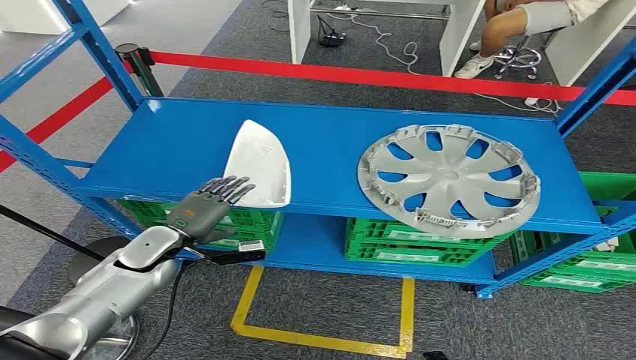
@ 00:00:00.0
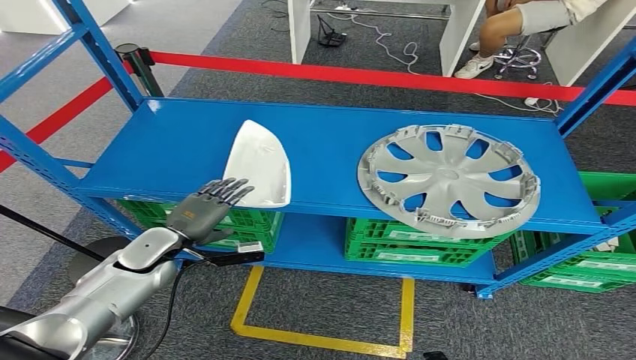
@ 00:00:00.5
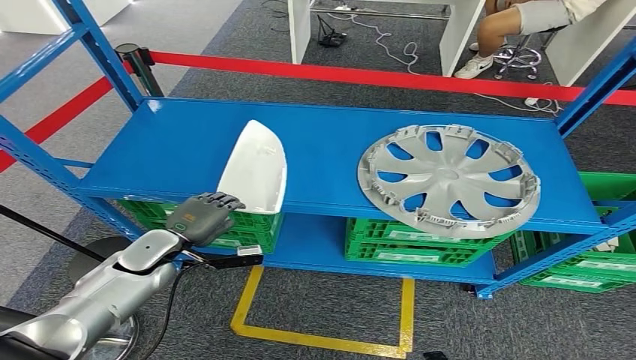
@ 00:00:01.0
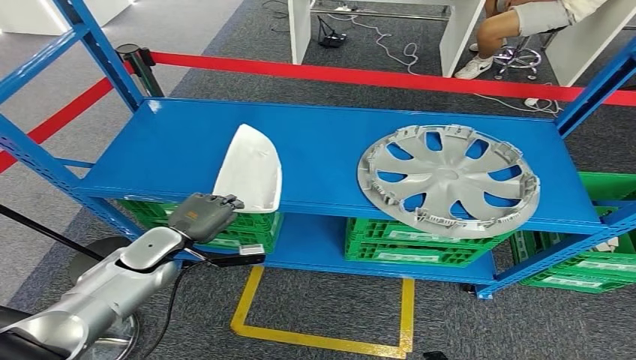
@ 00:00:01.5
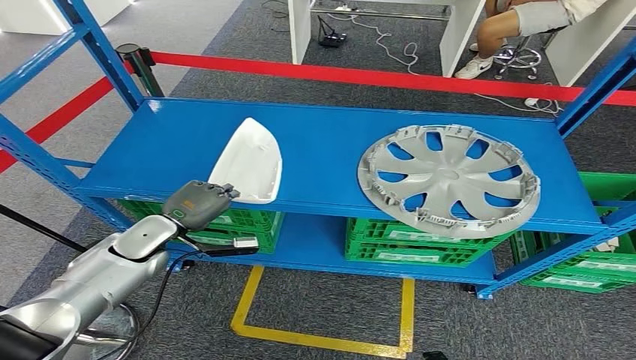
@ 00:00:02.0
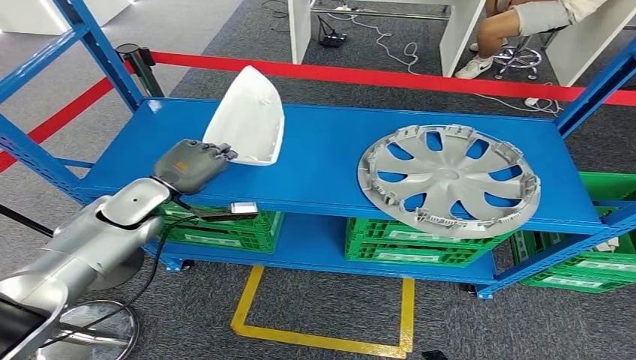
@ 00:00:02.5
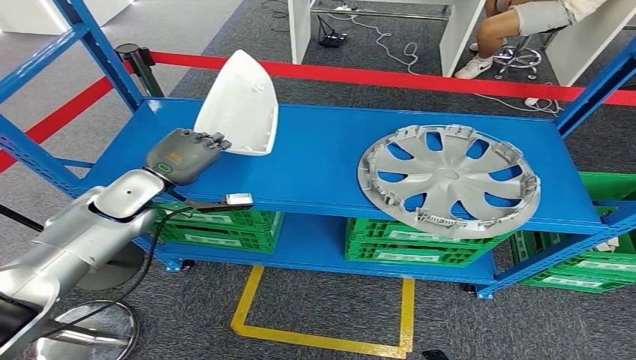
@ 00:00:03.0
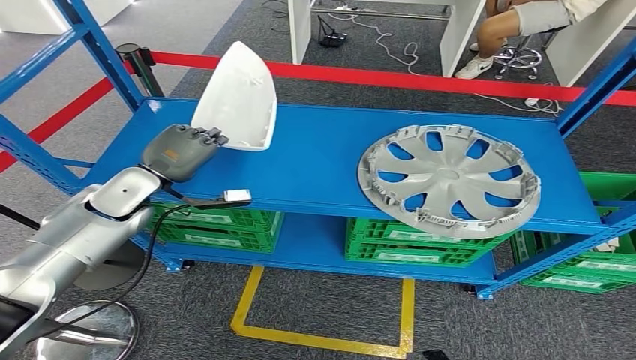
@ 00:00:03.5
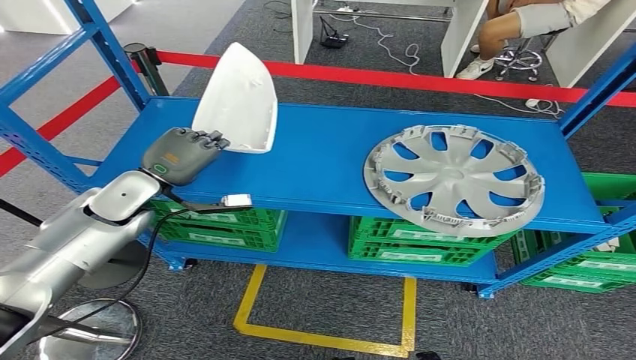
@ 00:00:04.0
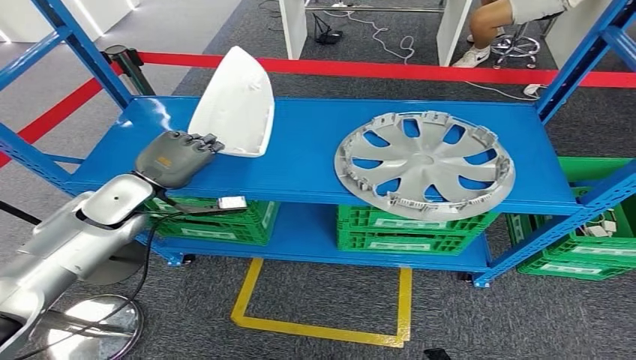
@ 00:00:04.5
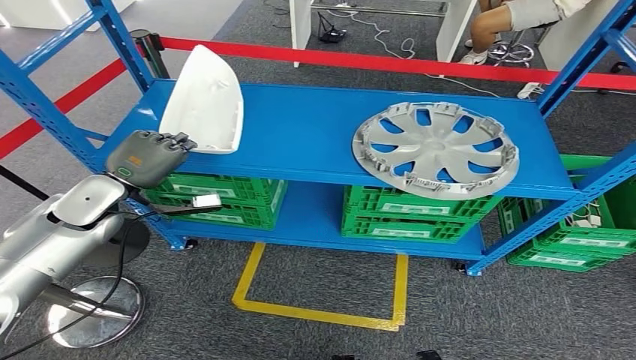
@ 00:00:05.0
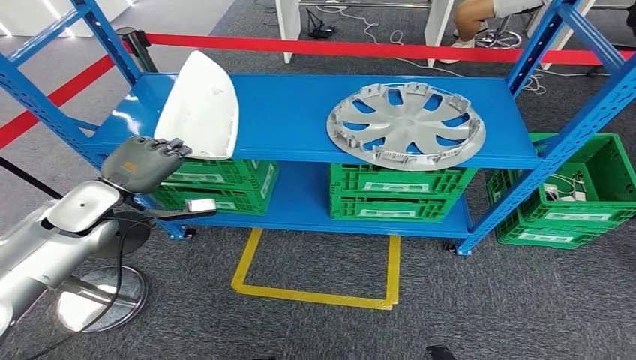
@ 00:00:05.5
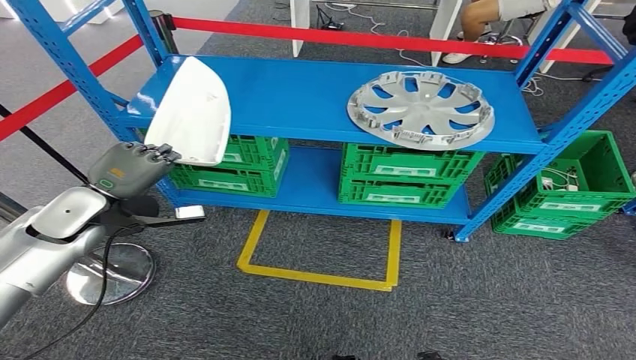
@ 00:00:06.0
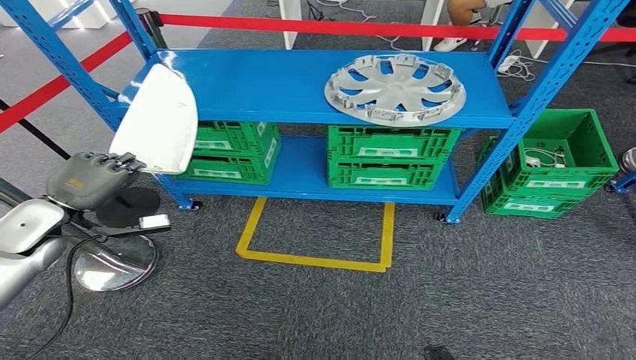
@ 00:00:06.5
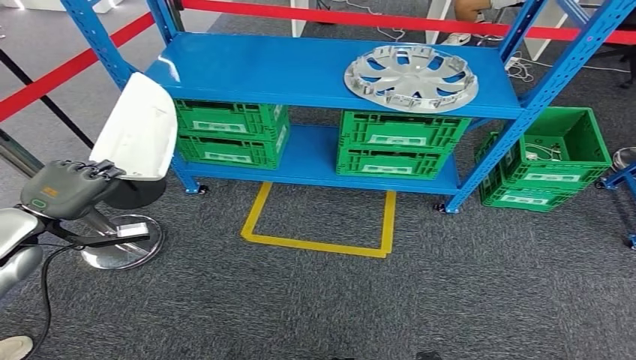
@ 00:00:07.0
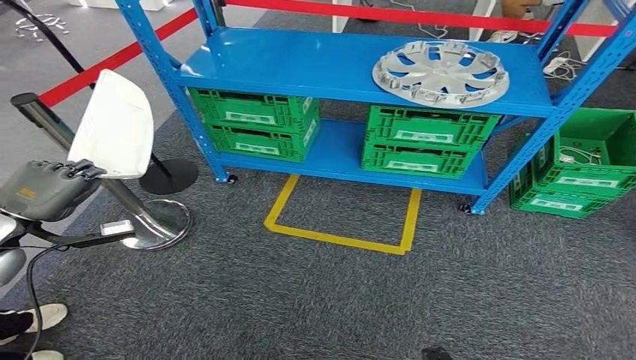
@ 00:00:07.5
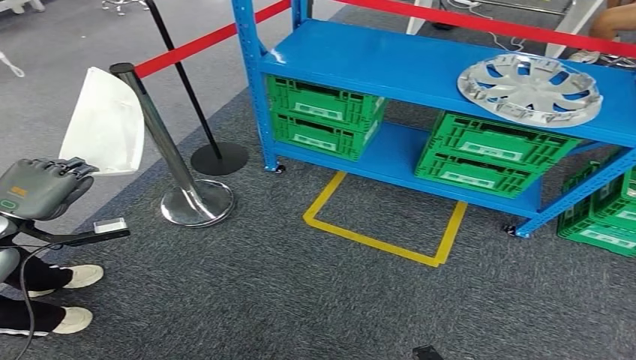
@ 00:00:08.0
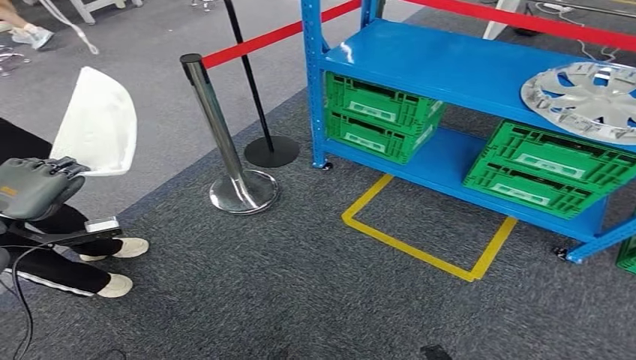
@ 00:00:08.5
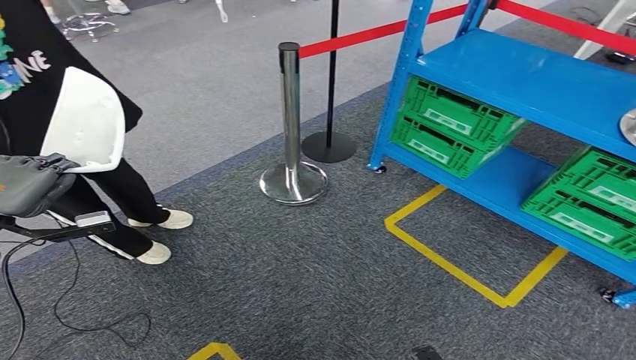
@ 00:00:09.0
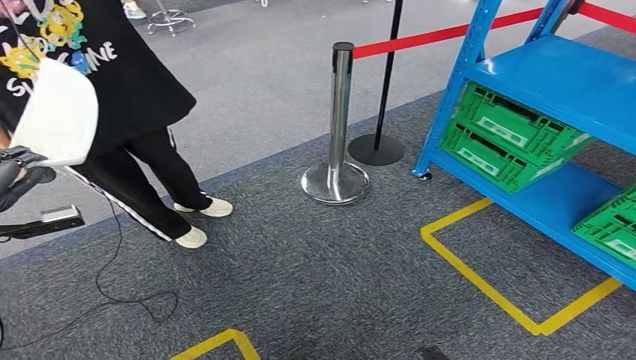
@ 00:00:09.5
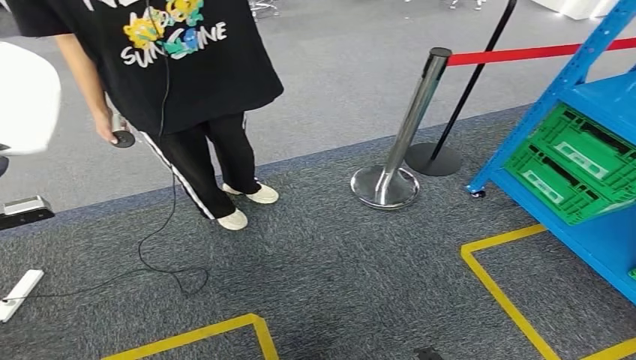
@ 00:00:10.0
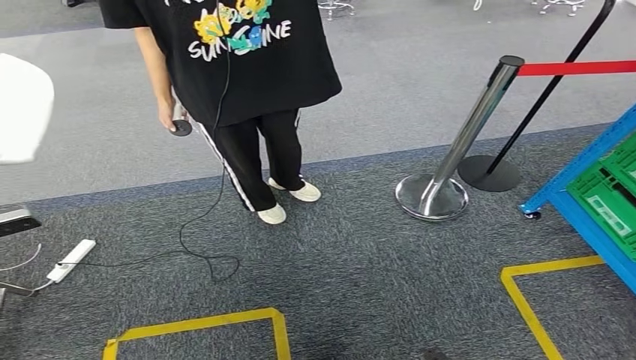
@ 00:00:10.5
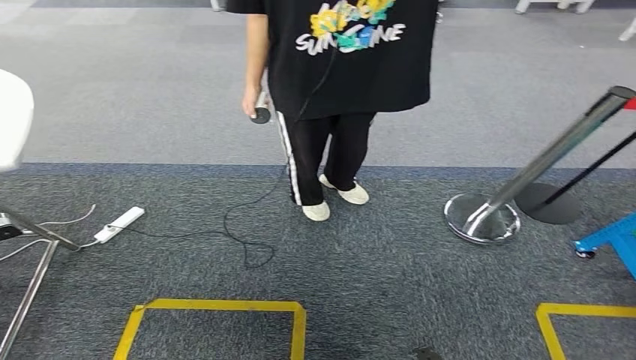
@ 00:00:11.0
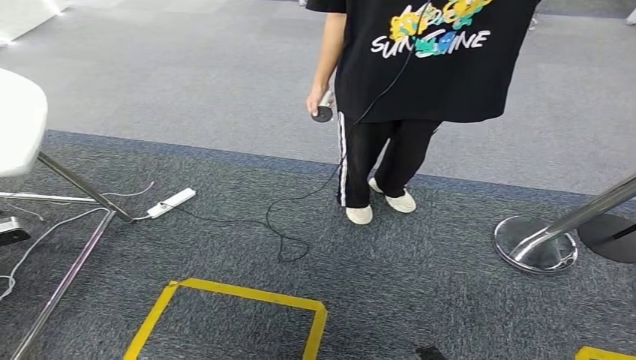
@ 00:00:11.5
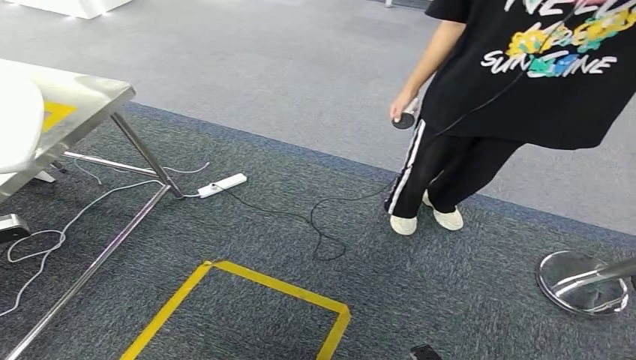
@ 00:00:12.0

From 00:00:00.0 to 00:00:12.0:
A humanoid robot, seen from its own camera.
Step, from 00:00:00.0 to 00:00:07.5: Pick up the small parts from the shelf.

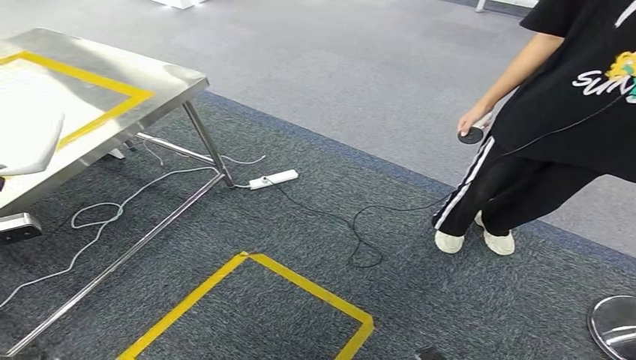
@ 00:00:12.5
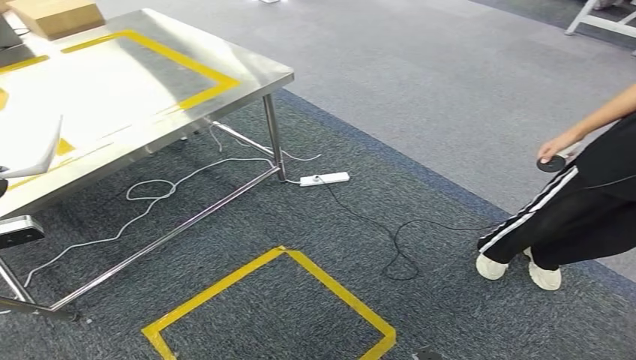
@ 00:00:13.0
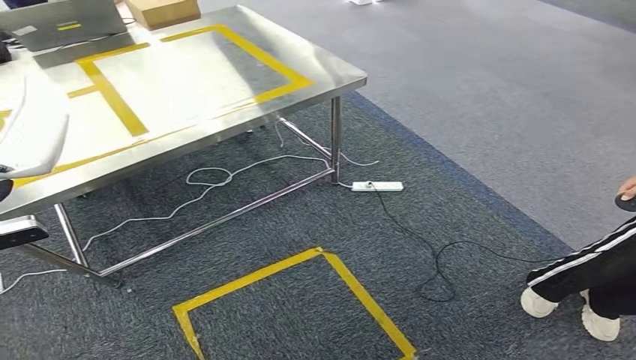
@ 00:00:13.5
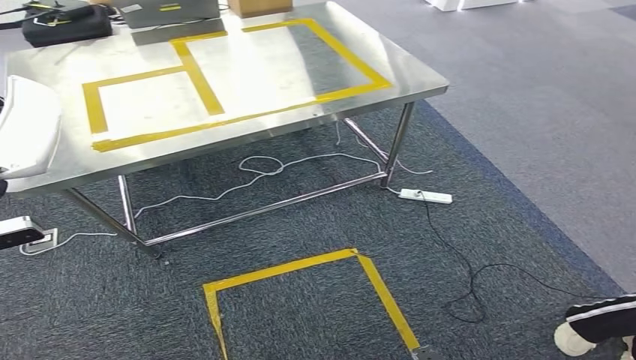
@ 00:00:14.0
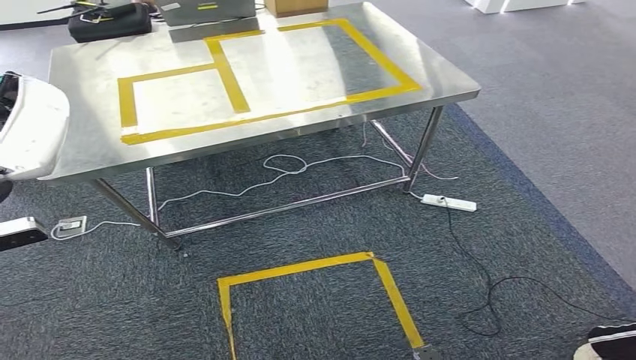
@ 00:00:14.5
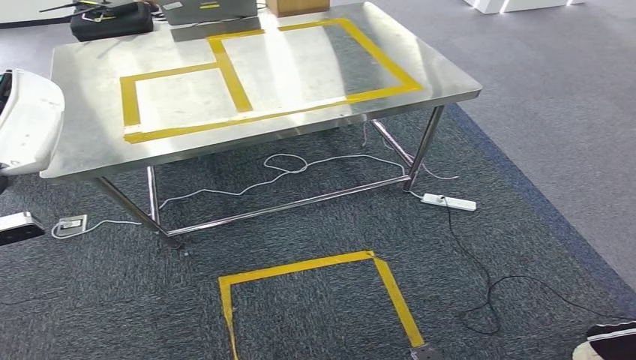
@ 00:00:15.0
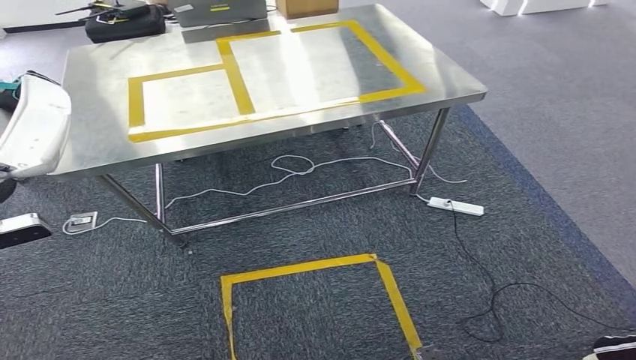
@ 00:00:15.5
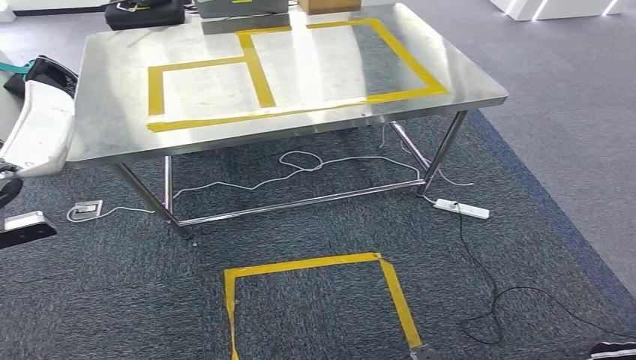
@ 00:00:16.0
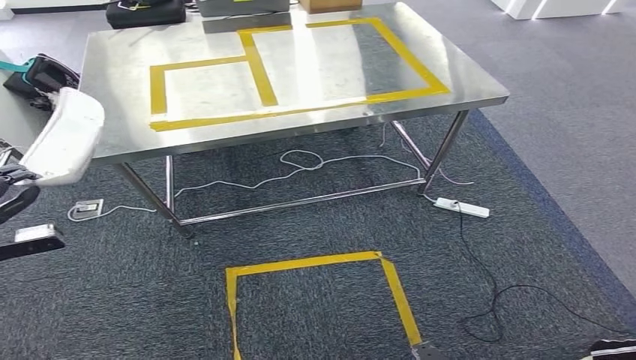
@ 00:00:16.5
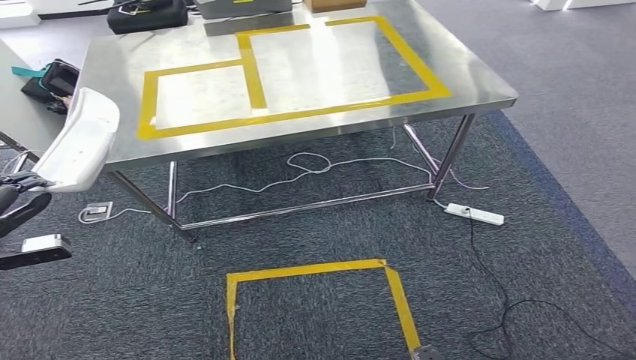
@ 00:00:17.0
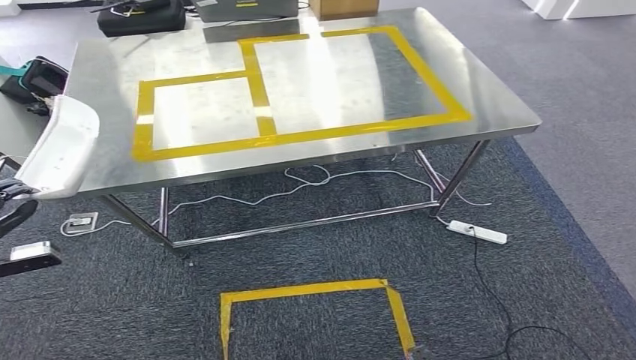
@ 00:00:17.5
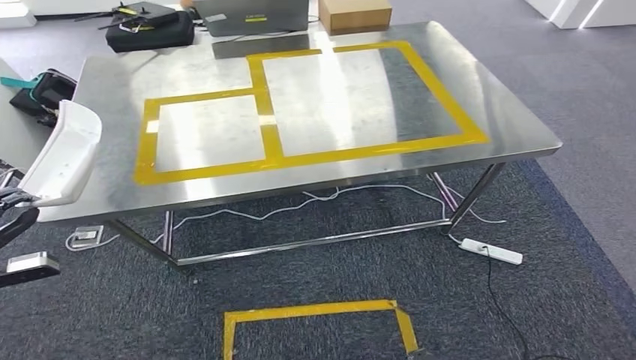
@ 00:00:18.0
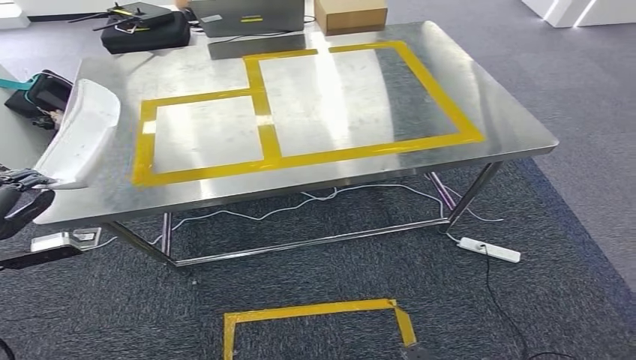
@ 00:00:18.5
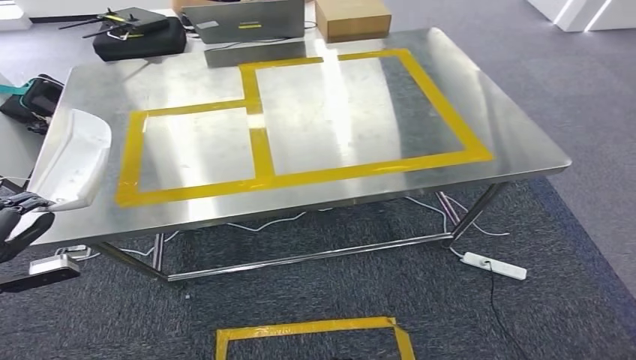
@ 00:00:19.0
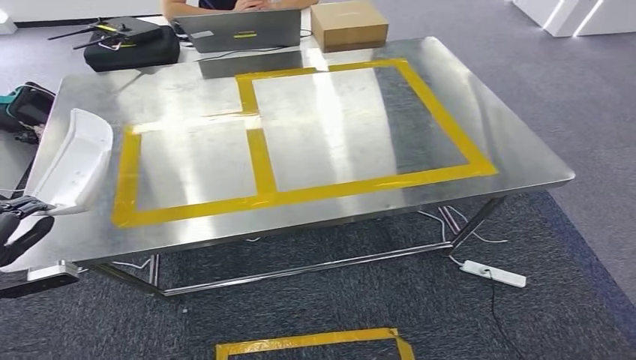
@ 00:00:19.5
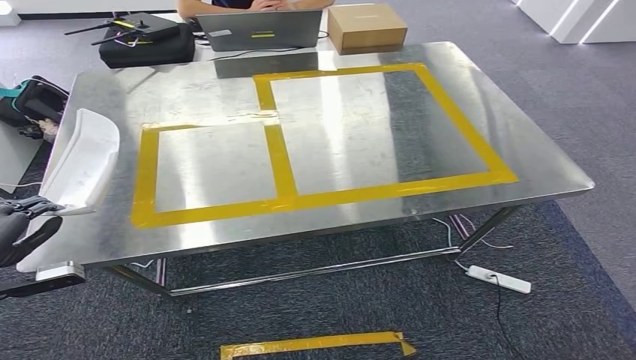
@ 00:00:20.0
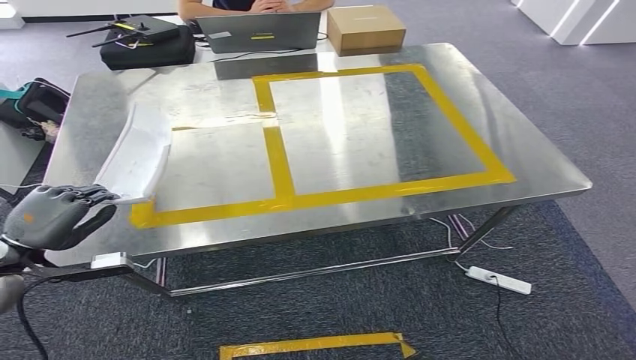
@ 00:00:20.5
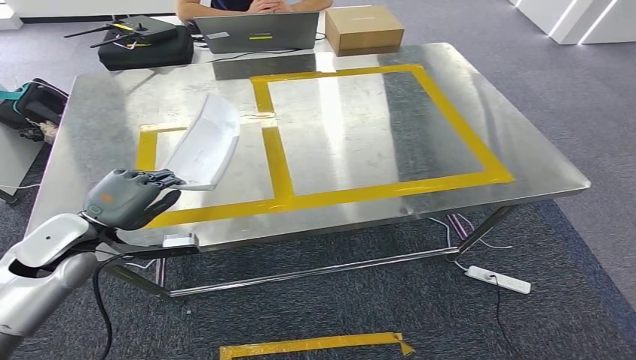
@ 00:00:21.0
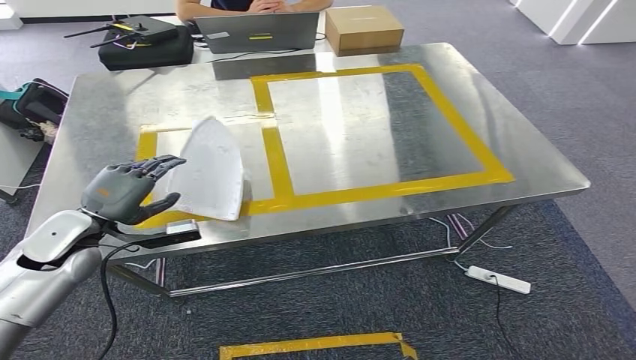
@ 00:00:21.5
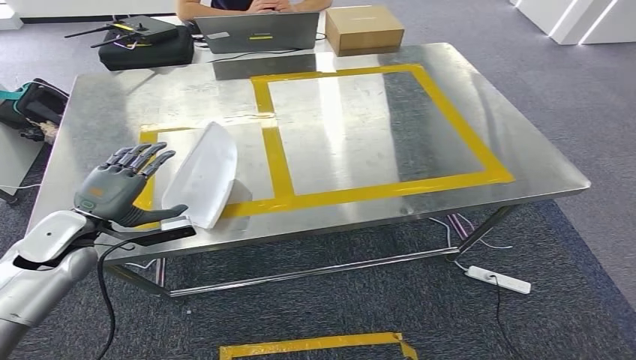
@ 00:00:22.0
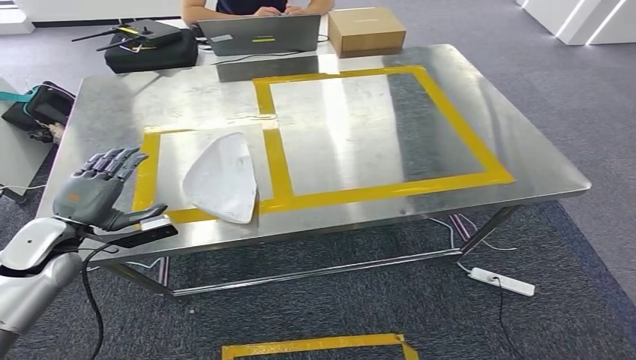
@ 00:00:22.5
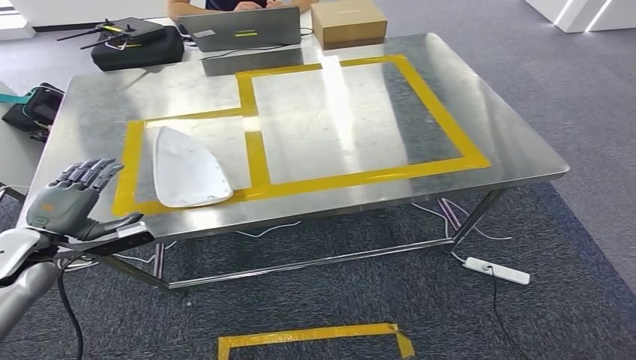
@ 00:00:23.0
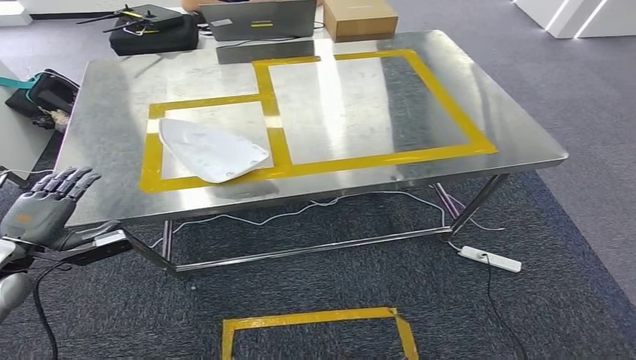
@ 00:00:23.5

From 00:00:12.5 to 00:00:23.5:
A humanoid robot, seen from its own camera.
Step, from 00:00:12.5 to 00:00:19.5: Move the small parts to the workbench.
Step, from 00:00:20.0 to 00:00:22.5: Insert the small parts into the corresponding slots on the workbench.
From 00:00:20.0 to 00:00:21.5: The left hand moves to the right and forward, roughly 15 cm.
